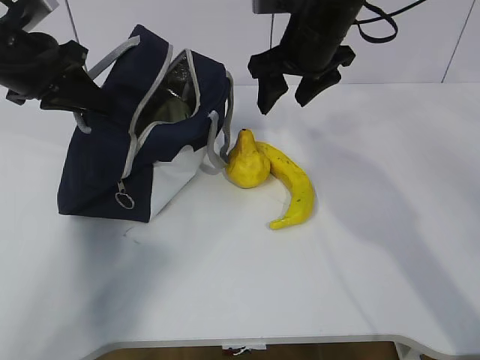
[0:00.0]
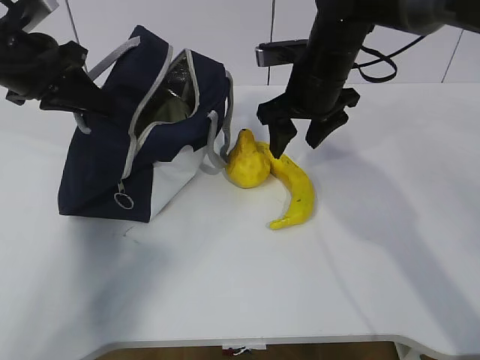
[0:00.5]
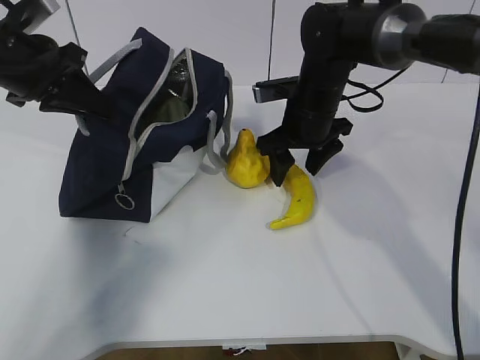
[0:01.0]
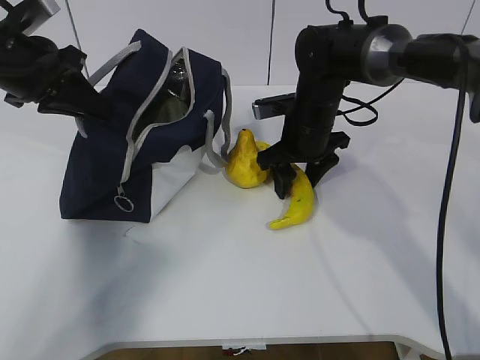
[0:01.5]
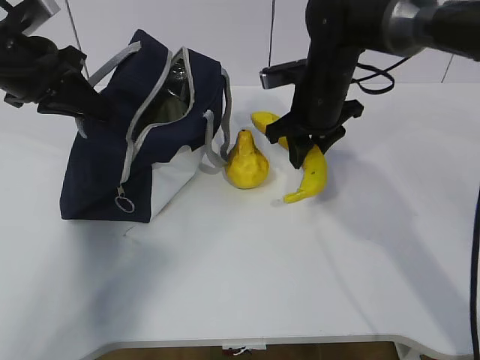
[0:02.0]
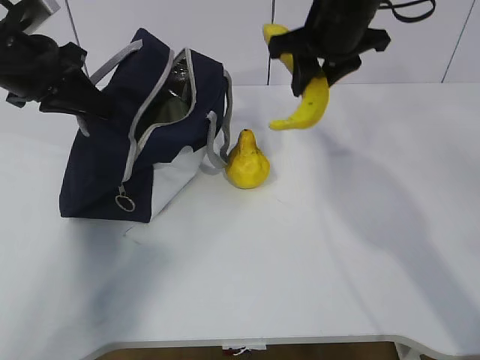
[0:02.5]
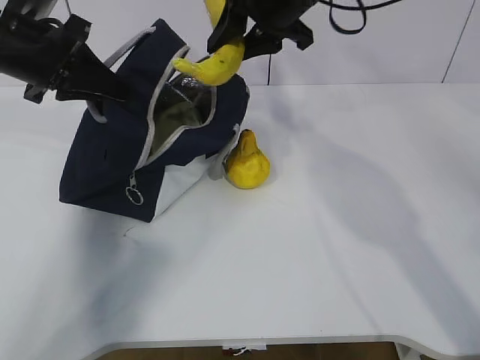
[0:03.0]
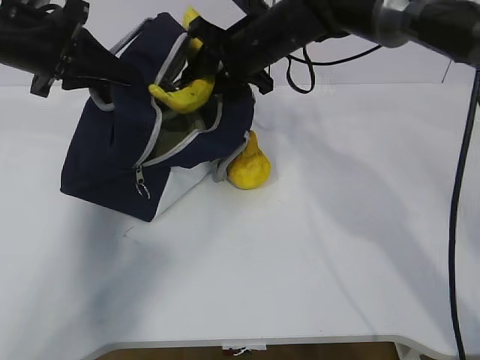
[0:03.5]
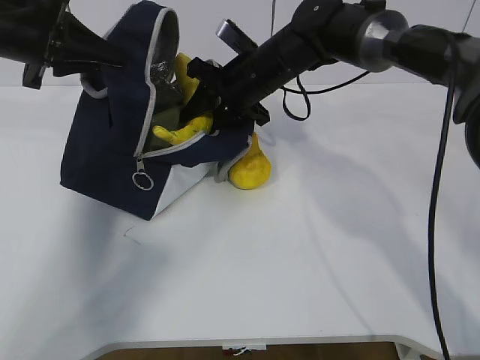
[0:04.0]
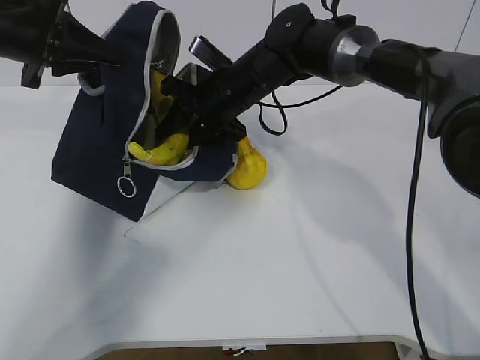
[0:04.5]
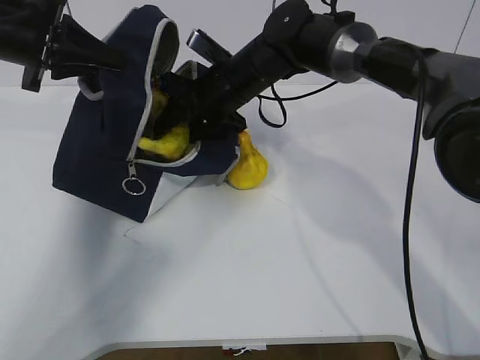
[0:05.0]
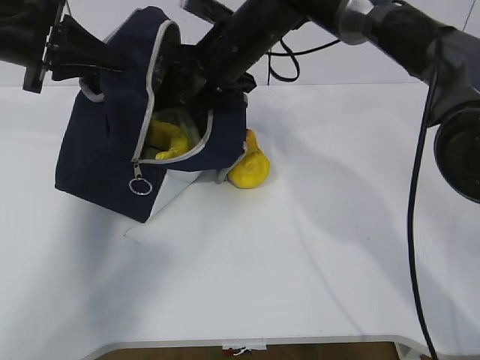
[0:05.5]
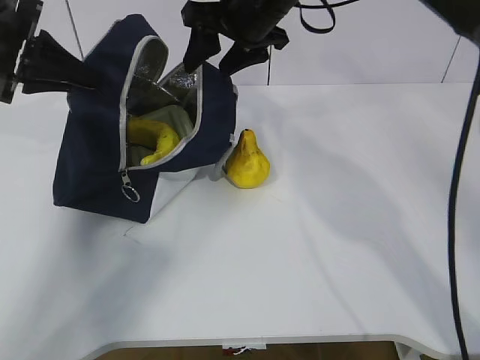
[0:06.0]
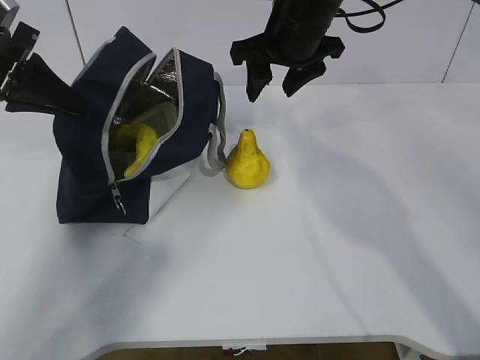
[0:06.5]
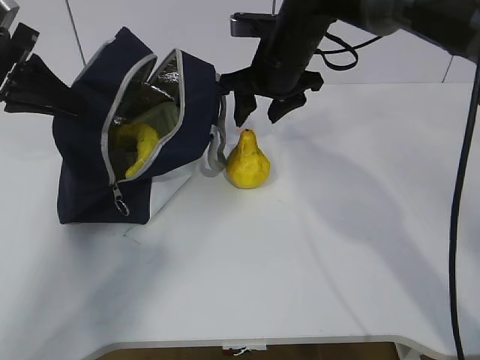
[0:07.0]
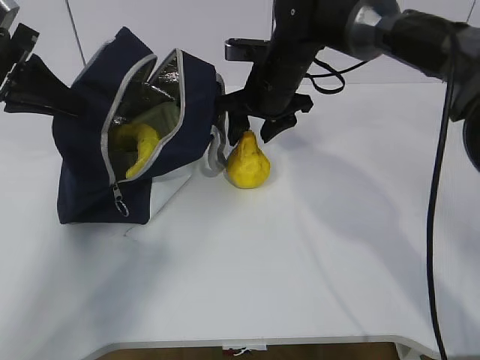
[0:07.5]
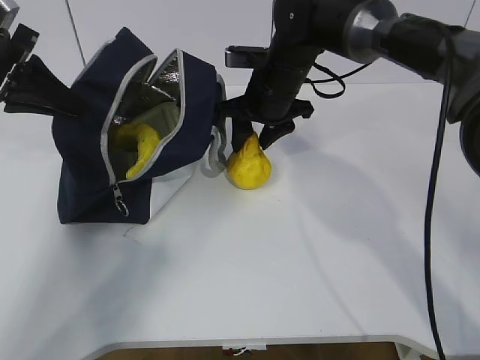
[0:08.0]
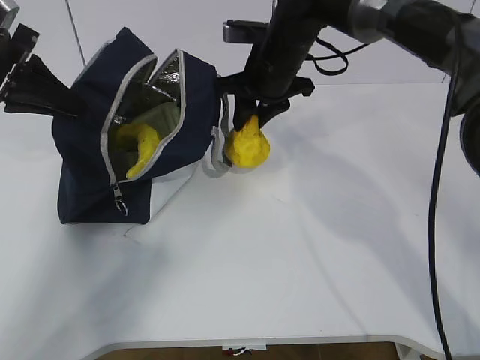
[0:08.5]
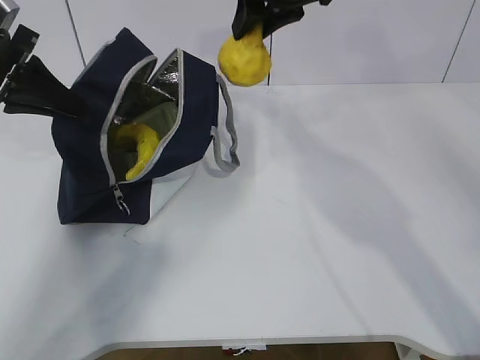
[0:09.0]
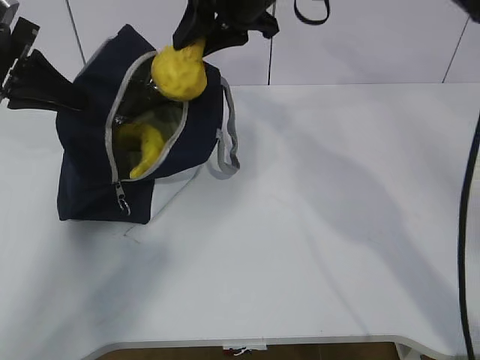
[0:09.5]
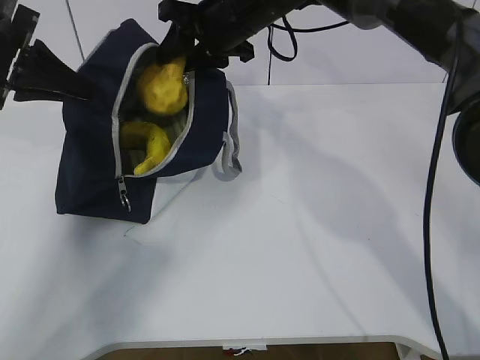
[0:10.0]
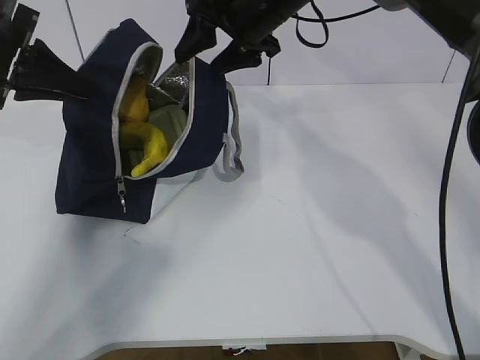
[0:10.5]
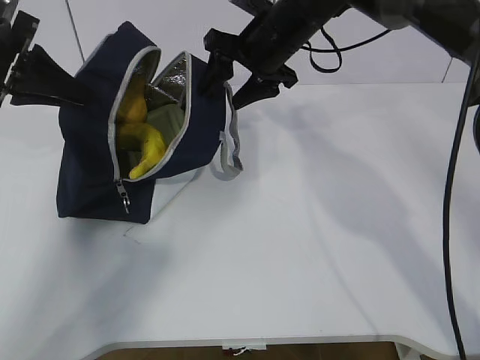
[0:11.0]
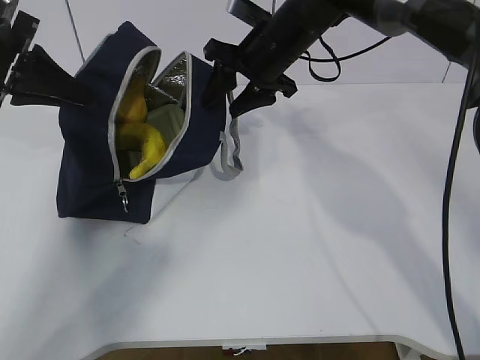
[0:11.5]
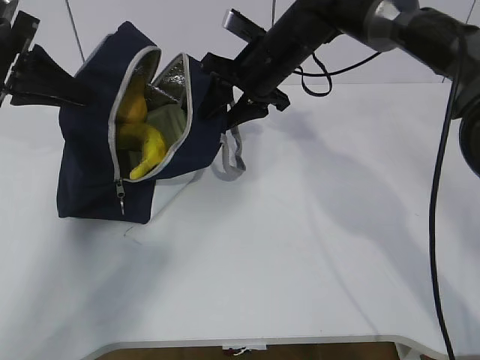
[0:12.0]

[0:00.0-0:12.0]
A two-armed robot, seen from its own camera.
Step, 0:01.5 to 0:03.5: Grab the pear with your right hand.
Step, 0:05.5 to 0:07.0: Grab the lunch bag with your right hand.
Step, 0:07.5 to 0:09.5: Move the lunch bag to the right.
0:00.0 to 0:02.0: The right gripper goes roughly 10 cm downward, and closes up.
0:02.0 to 0:04.0: The right gripper moves to the left, some 5 cm, and reaches some 15 cm upward, then returns.
0:04.0 to 0:06.0: The right gripper shifts about 10 cm upward, and opens.
0:06.0 to 0:08.0: The right gripper moves downward, some 10 cm.
0:08.0 to 0:10.0: The right gripper heads upward, covering some 10 cm.
0:10.0 to 0:12.0: The right gripper is displaced downward by about 5 cm.

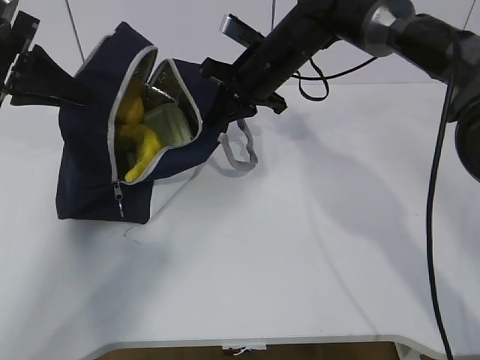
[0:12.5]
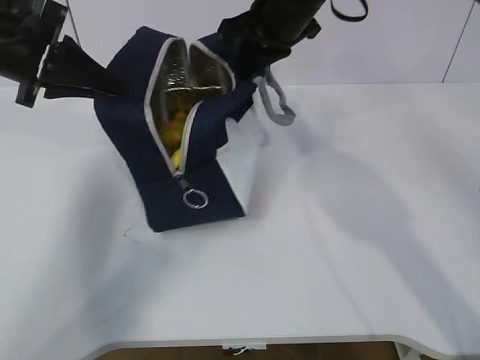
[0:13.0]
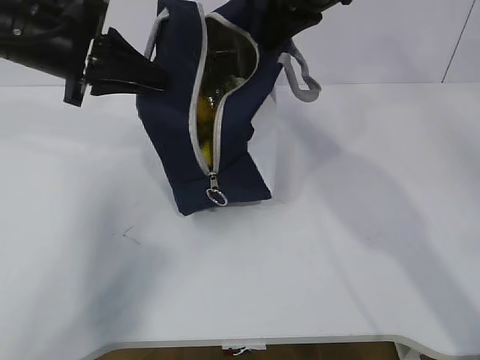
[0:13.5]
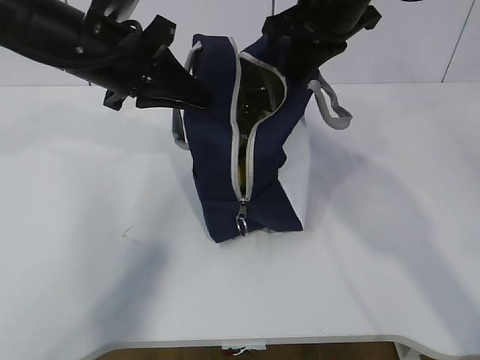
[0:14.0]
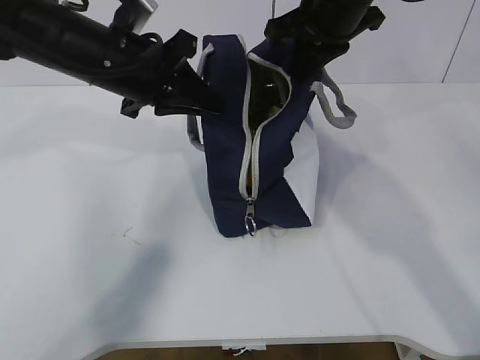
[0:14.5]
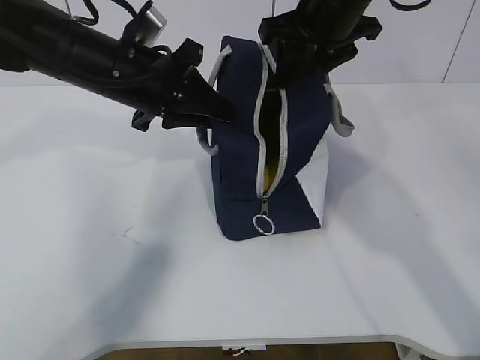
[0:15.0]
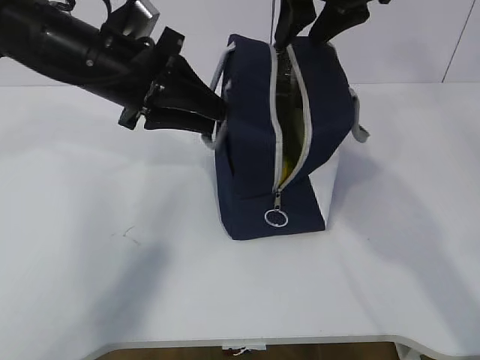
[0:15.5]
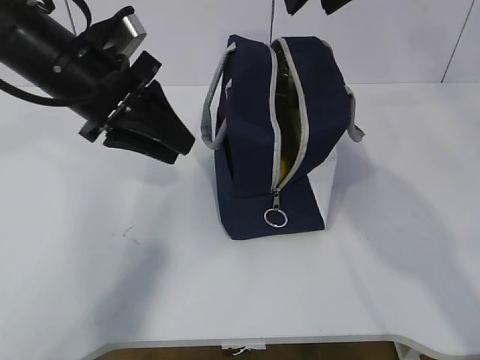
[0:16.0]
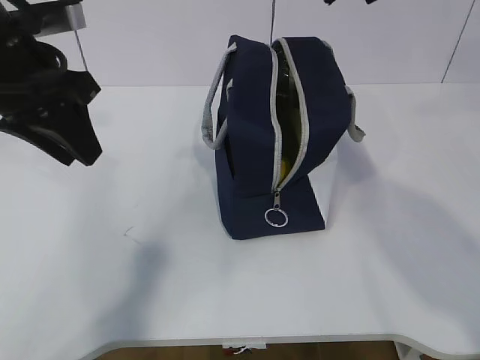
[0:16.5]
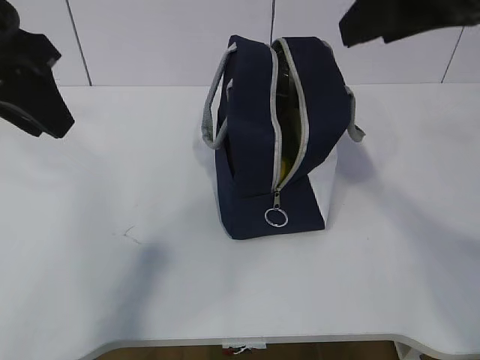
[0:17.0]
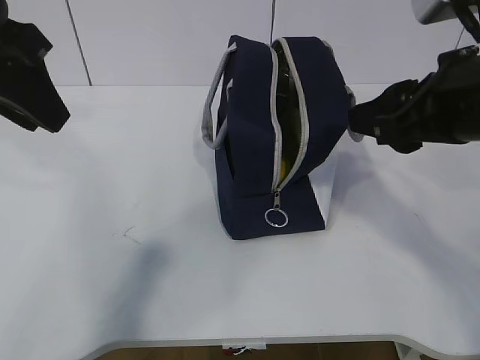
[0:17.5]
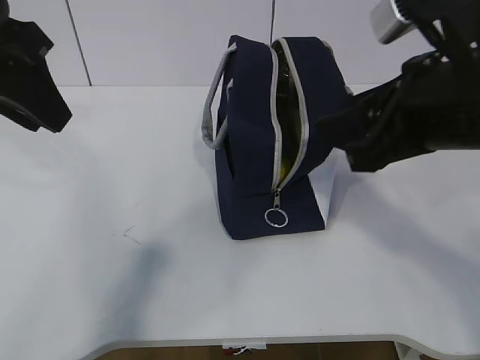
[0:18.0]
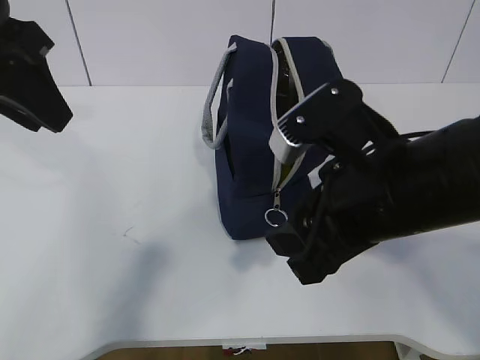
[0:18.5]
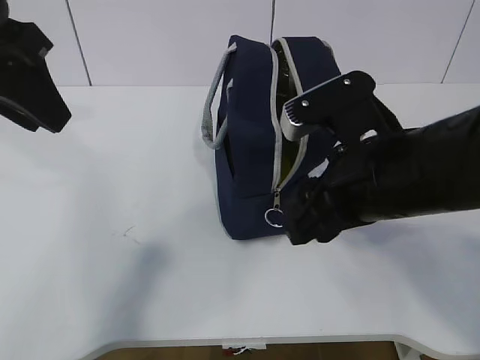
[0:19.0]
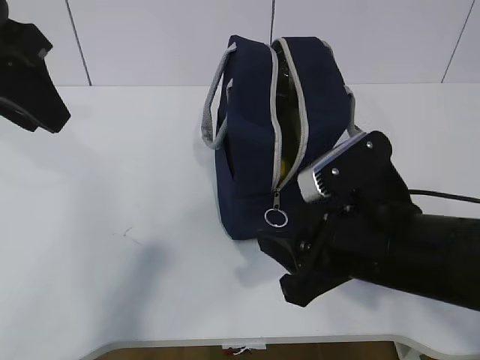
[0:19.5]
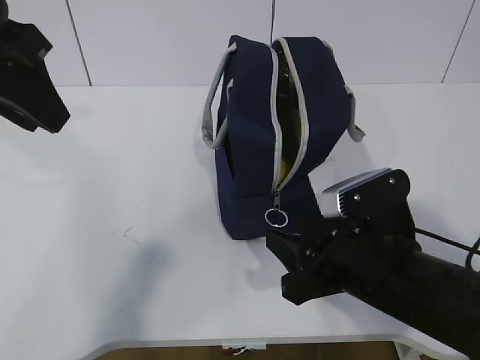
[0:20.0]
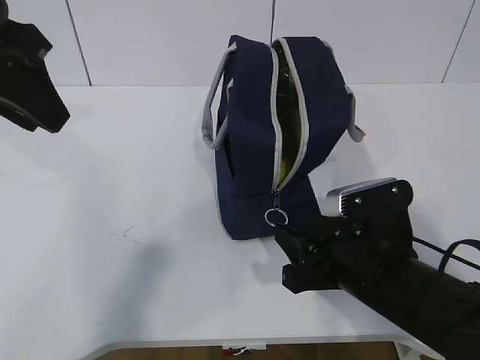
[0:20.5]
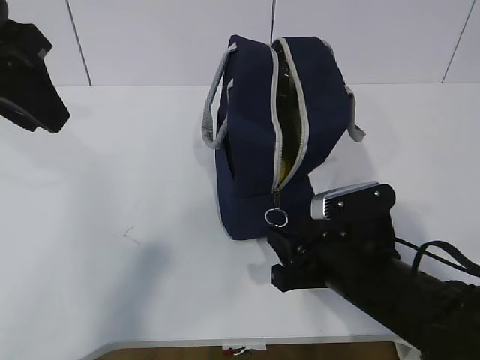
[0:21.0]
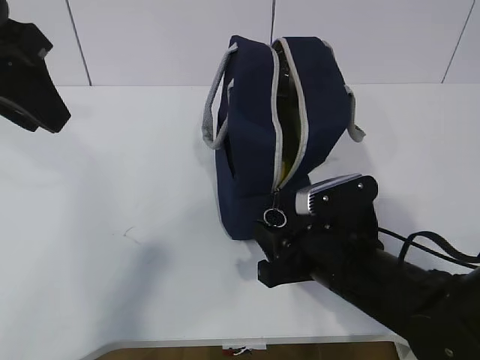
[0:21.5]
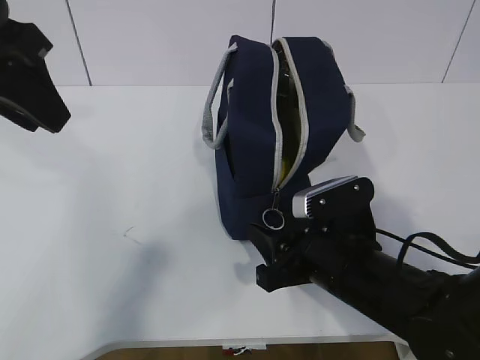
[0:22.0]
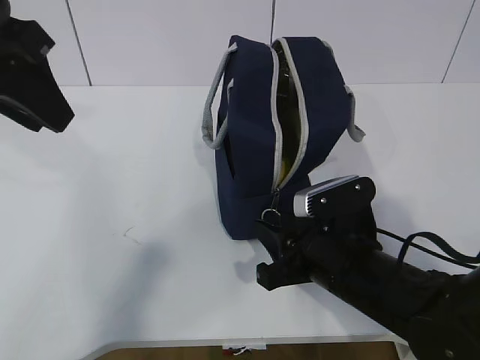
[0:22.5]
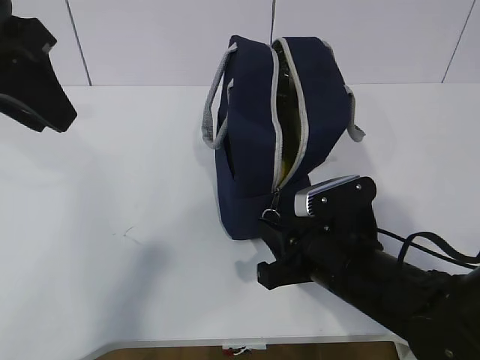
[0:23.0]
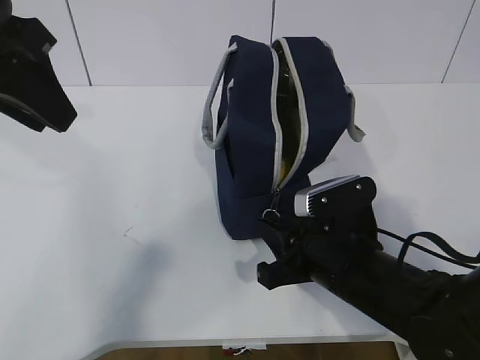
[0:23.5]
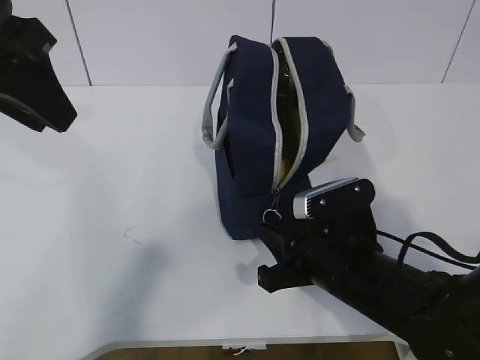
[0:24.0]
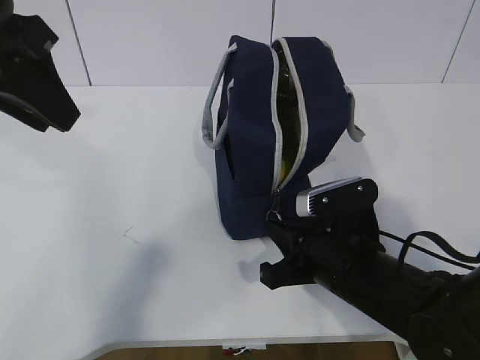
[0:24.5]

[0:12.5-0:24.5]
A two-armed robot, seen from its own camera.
Step, 0:12.5 to 0:22.5: Grab the lunch bag with your left hand.
0:12.5 to 0:14.5: The left gripper goes some 15 cm to the right, while the right gripper travels upward, backward and to the right by roughly 15 cm.
0:14.5 to 0:16.5: The right gripper is displaced upward and backward by approximately 15 cm, and opens its fingers; the left gripper is displaced to the left and backward by roughly 10 cm, and opens its fingers.
0:16.5 to 0:18.5: The right gripper is displaced downward and backward by roughly 20 cm. Meanwhile the left gripper is displaced upward by approximately 5 cm.
0:18.5 to 0:20.5: The right gripper heads downward, covering about 15 cm.
0:20.5 to 0:22.5: The grippers stay close to where they were, moving slightly.
0:22.5 to 0:24.5: The right gripper closes.

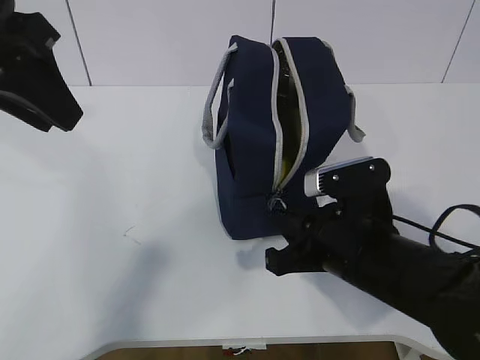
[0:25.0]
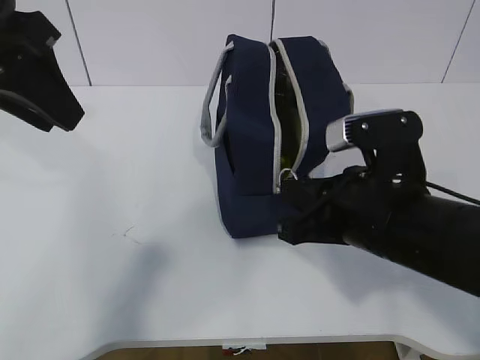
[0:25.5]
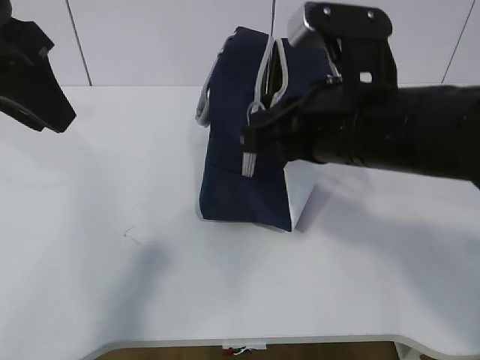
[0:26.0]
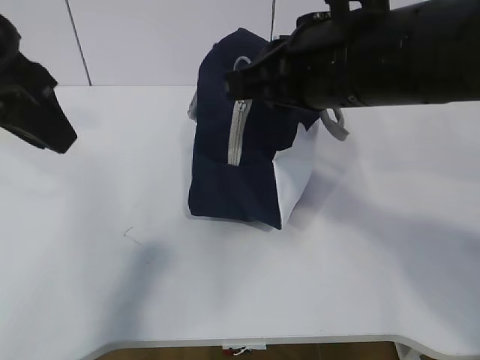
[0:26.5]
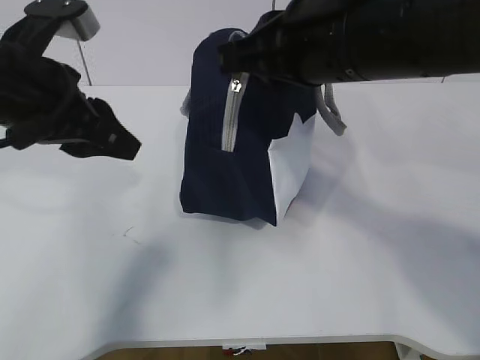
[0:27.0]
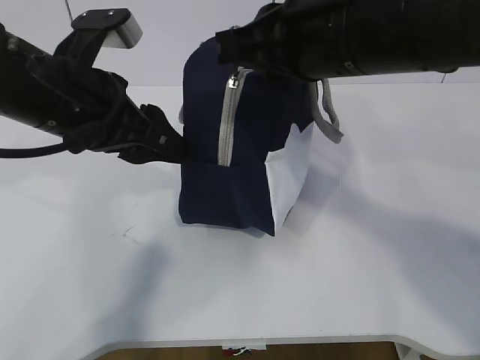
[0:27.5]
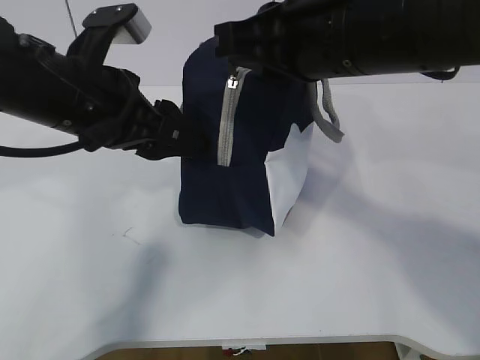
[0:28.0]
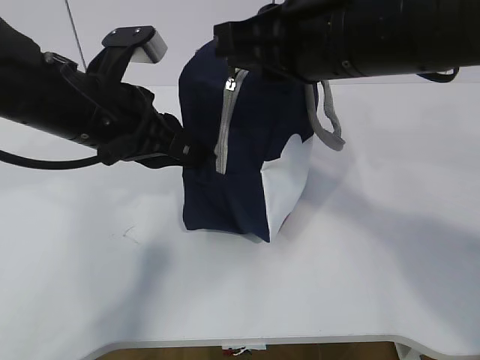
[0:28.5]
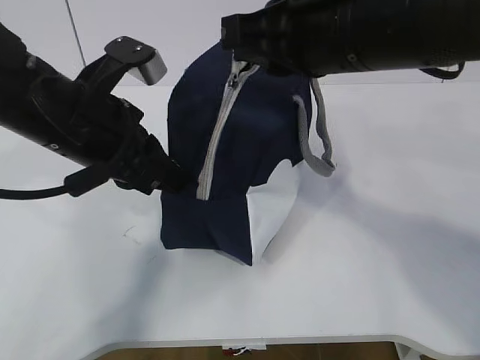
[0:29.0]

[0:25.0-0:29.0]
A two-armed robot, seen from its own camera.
Step, 0:26.0 to 0:26.5: Grab the lunch bag with your left hand.
0:25.0 to 0:27.0: The right gripper heads upward, covering some 20 cm. Meanwhile the left gripper is displaced downward by about 10 cm.
0:27.0 to 0:29.0: The left gripper moves roughly 5 cm, and closes up.
